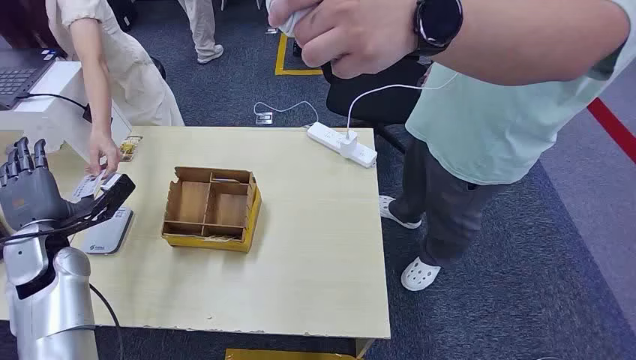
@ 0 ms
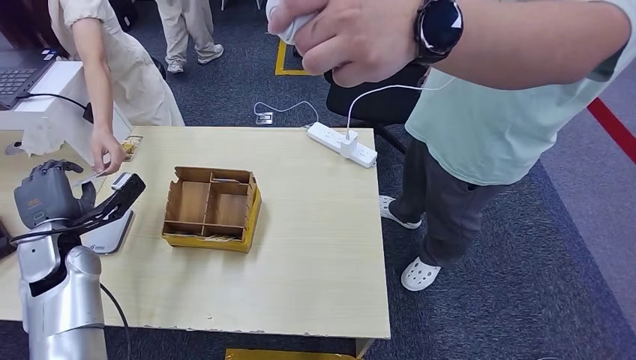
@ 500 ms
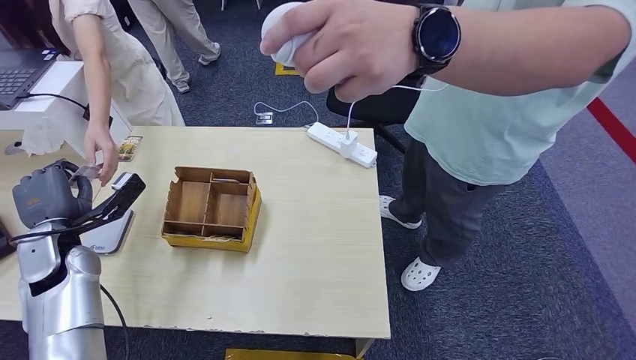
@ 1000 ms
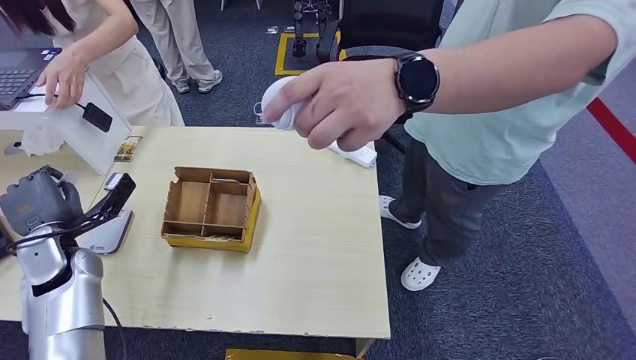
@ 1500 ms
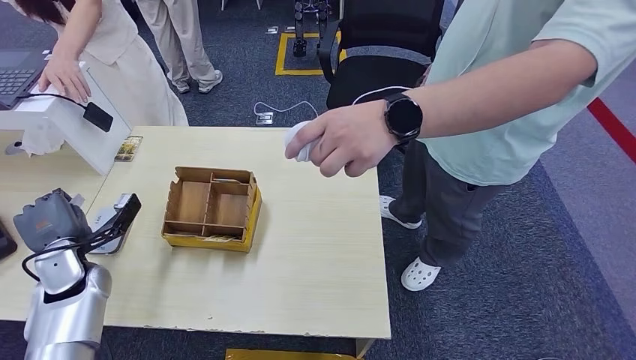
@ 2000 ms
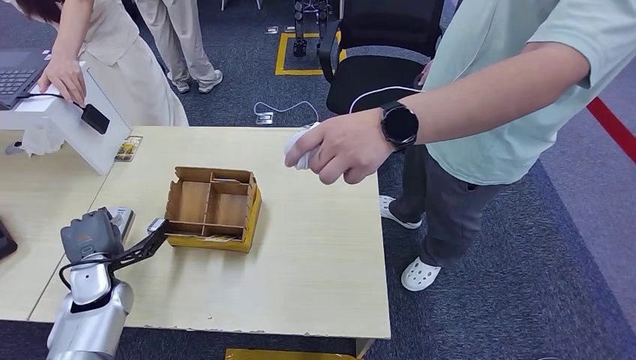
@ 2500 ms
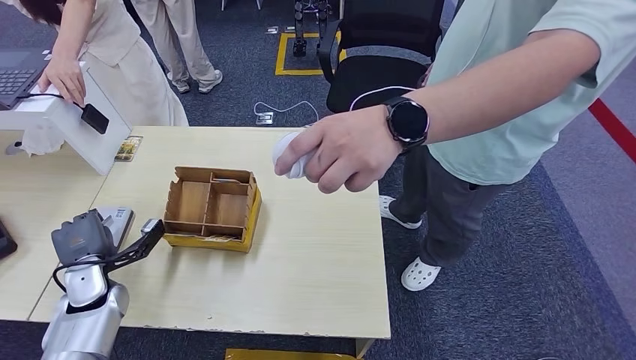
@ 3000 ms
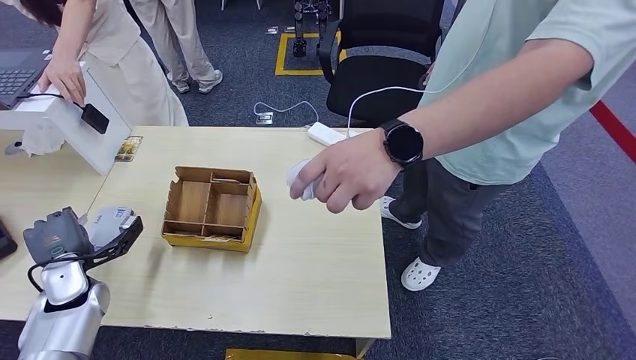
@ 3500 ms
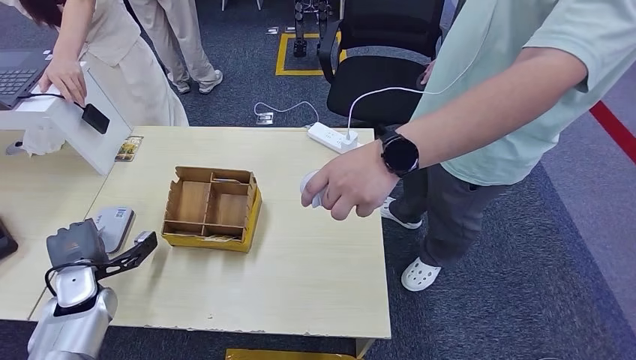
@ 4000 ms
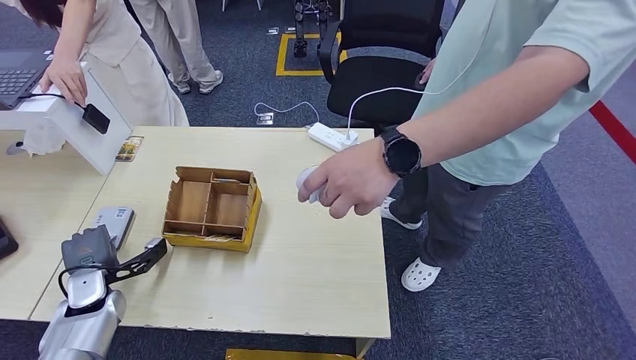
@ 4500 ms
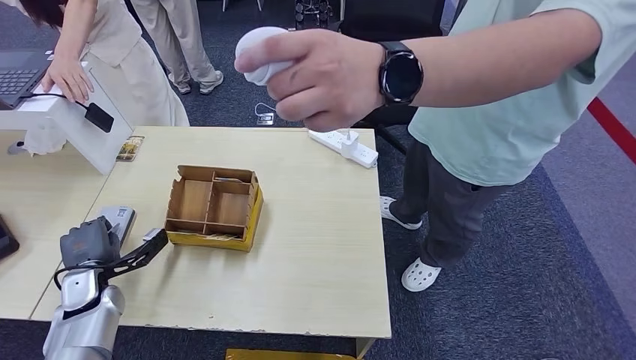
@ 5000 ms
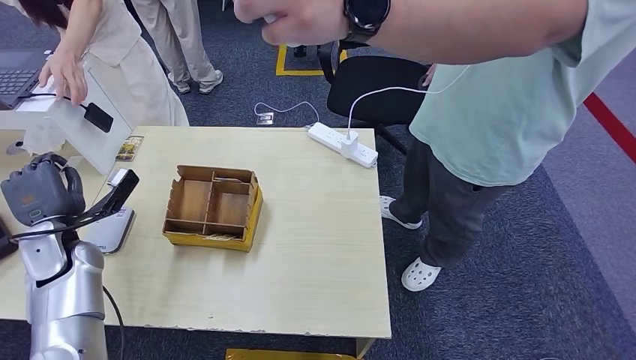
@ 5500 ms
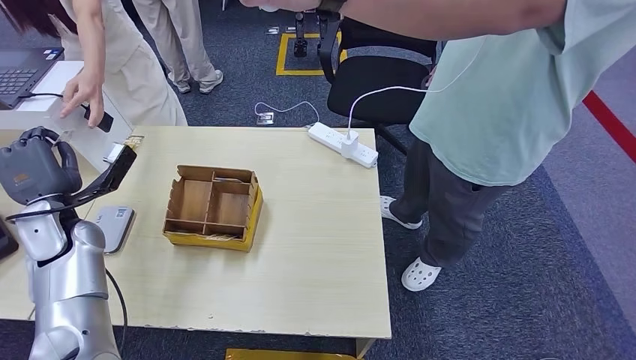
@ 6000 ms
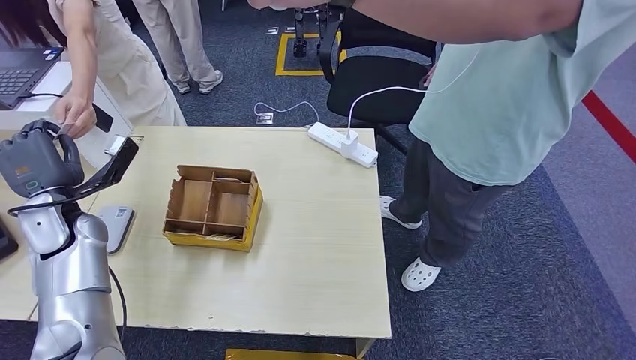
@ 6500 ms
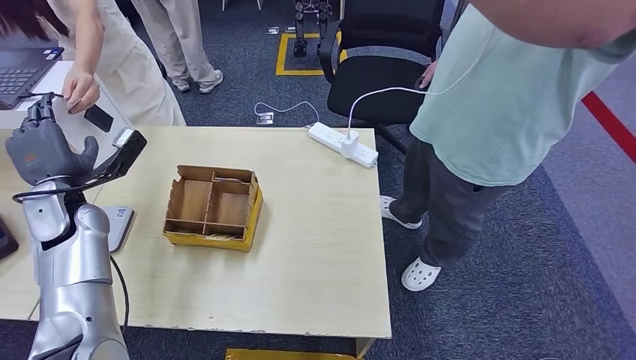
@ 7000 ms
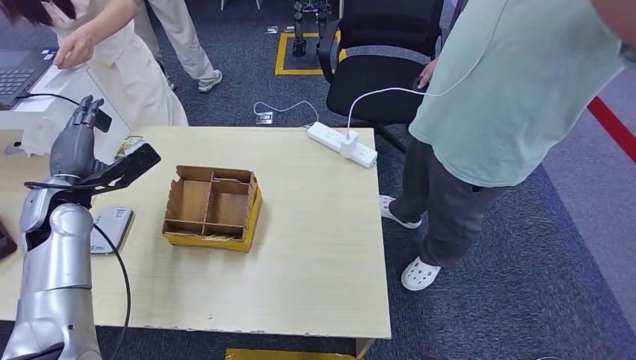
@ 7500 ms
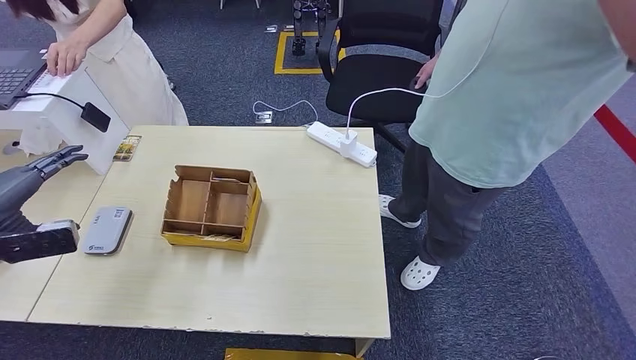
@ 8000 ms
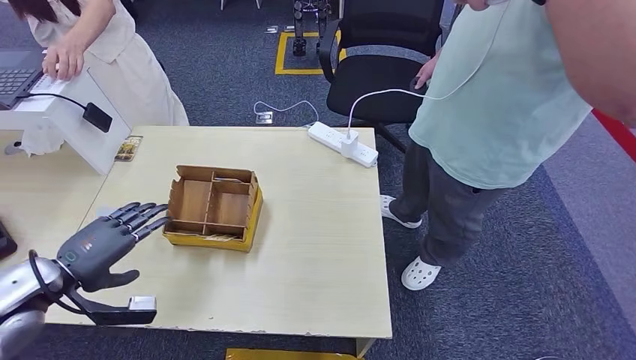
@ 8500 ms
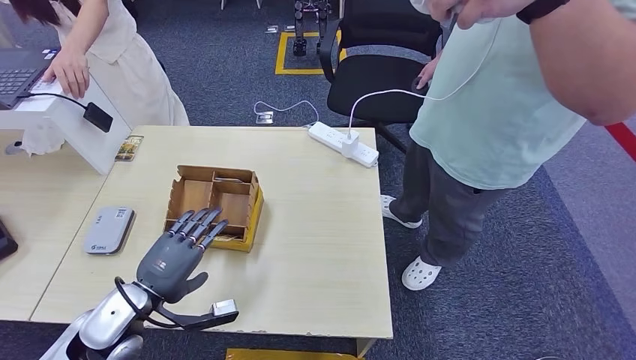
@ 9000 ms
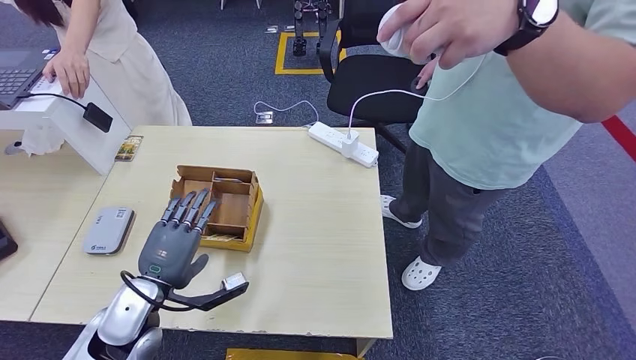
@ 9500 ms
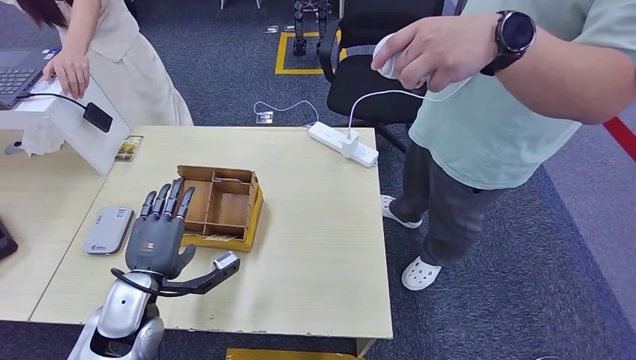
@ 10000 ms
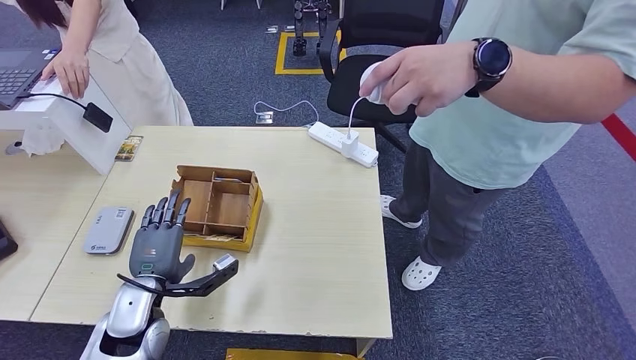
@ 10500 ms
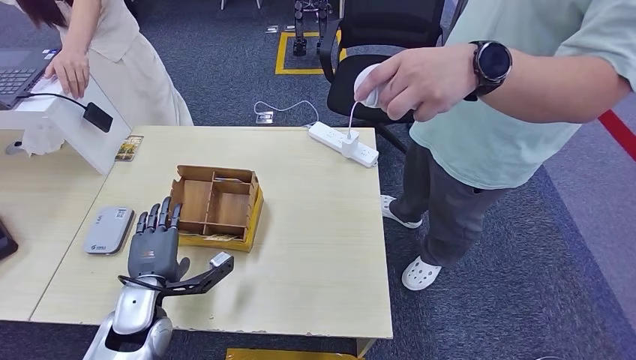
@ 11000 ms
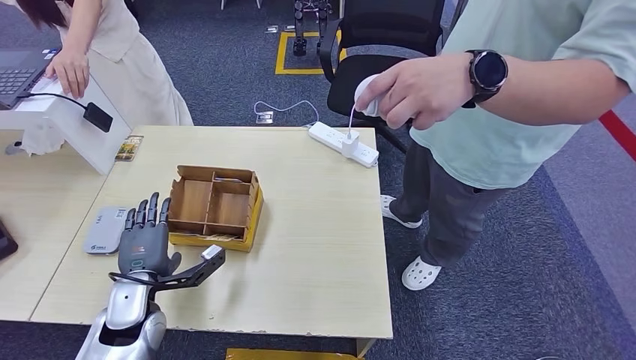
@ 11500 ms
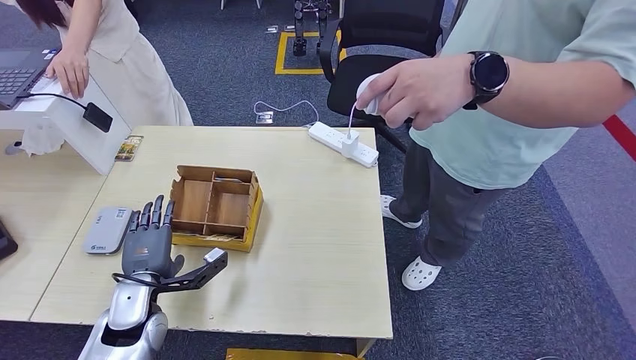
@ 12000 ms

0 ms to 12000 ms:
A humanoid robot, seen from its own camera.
Step, 0 ms to 1000 ms: Take the ID card from the person's hand.
Step, 1500 ms to 3500 ms: Place the ID card on the card reader.
Step, 4000 ms to 7000 ms: Hand the ID card to the person.
2000 ms to 4000 ms: The left hand shifts some 5 cm downward.
8000 ms to 10000 ms: The left hand moves to the right and downward, about 25 cm.
10000 ms to 12000 ms: The hands move only a little.

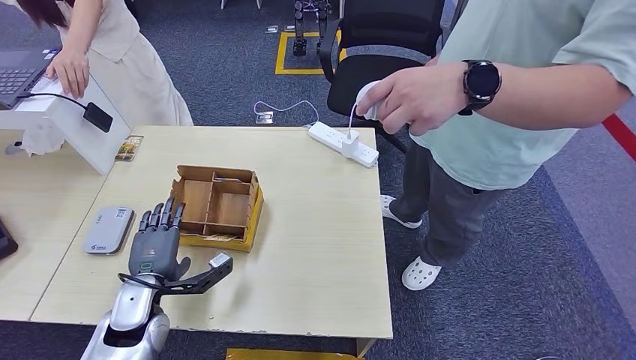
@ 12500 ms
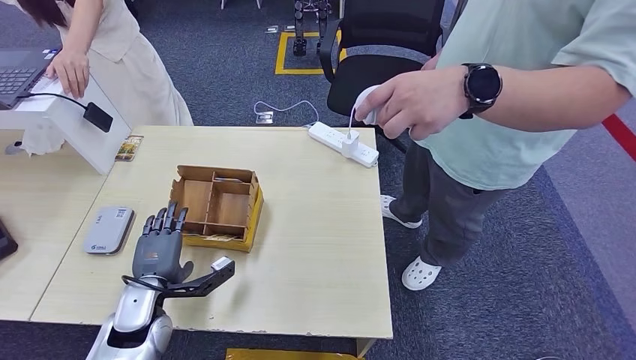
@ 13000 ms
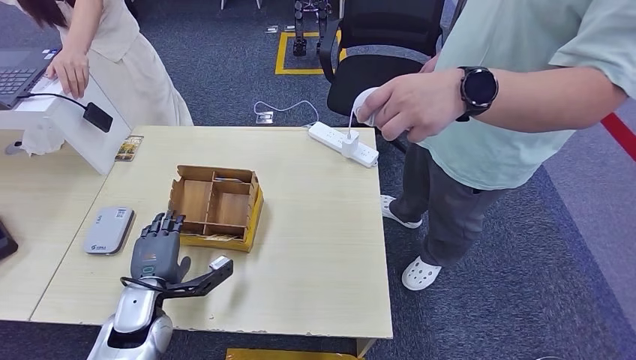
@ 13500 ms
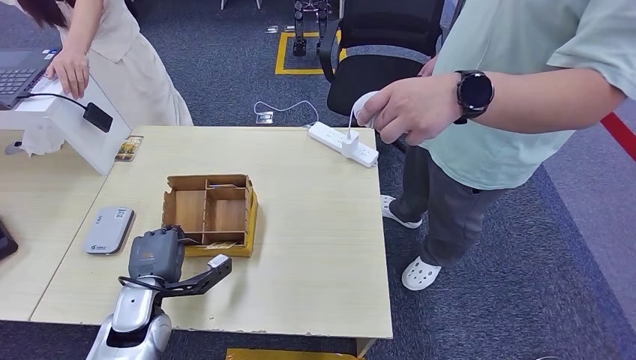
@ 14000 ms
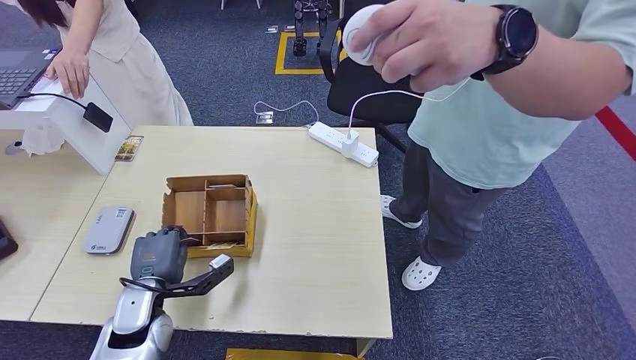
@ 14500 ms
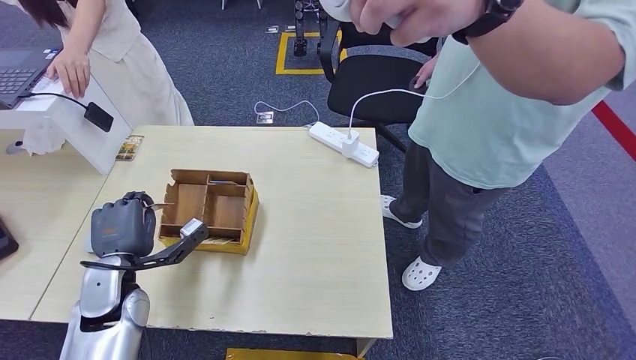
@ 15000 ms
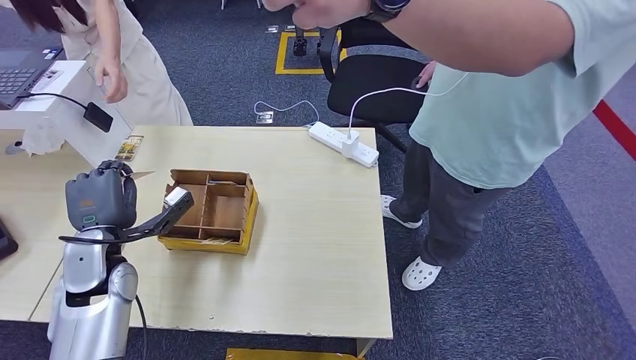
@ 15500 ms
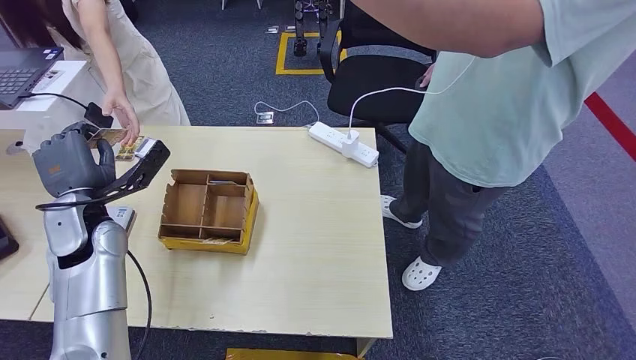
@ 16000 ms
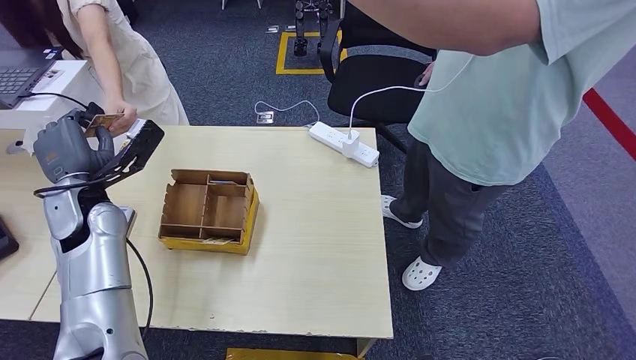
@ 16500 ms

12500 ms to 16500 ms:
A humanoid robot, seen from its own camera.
Step, 14500 ms to 16500 ms: Hand the room key to the person.
12500 ms to 14500 ms: The two hands keep their place.
